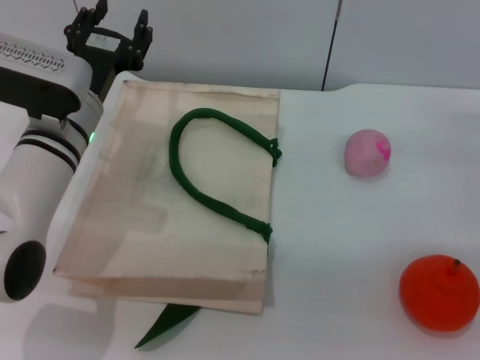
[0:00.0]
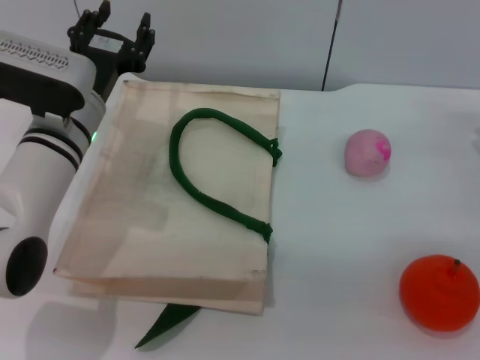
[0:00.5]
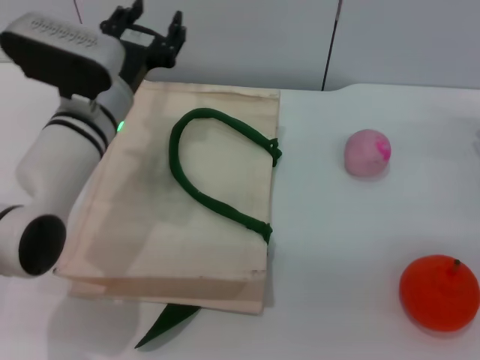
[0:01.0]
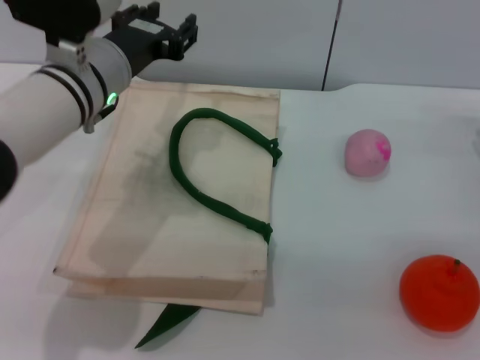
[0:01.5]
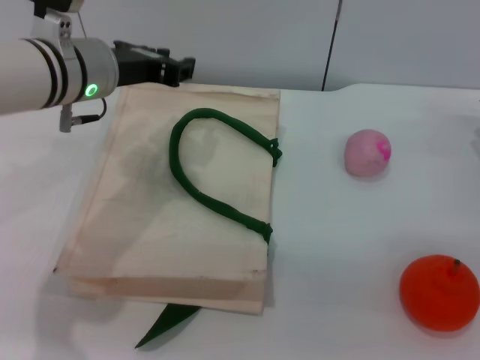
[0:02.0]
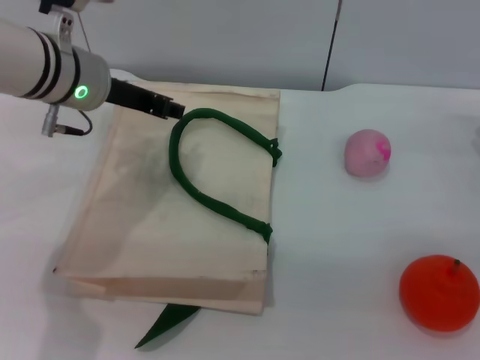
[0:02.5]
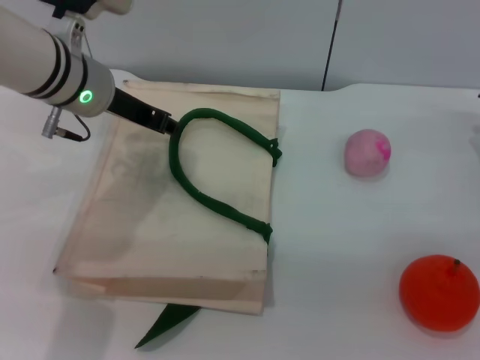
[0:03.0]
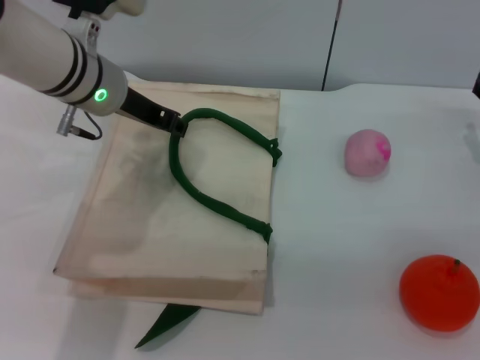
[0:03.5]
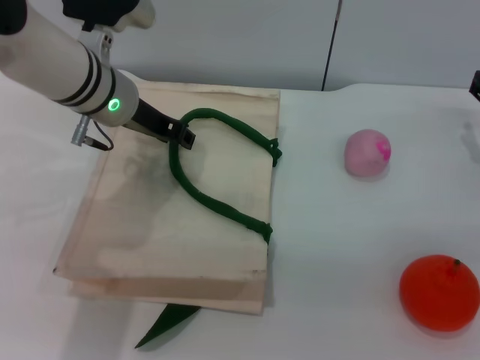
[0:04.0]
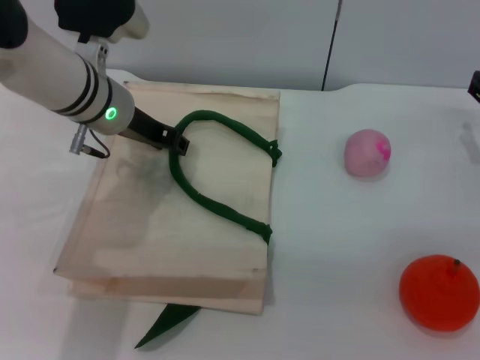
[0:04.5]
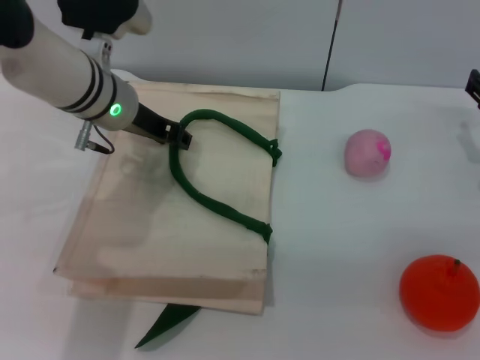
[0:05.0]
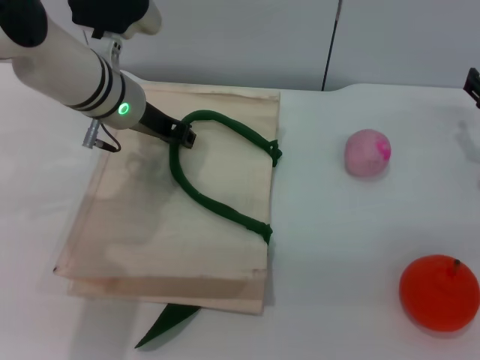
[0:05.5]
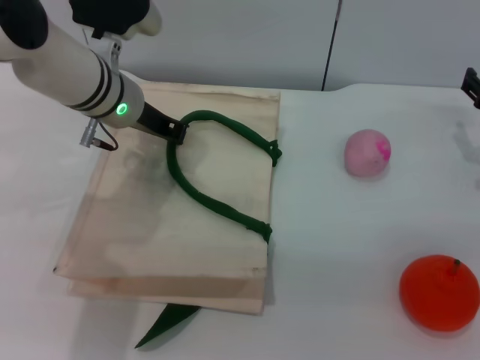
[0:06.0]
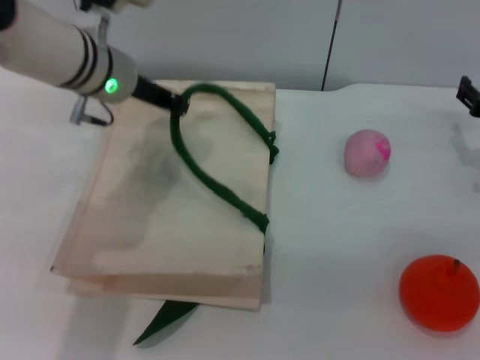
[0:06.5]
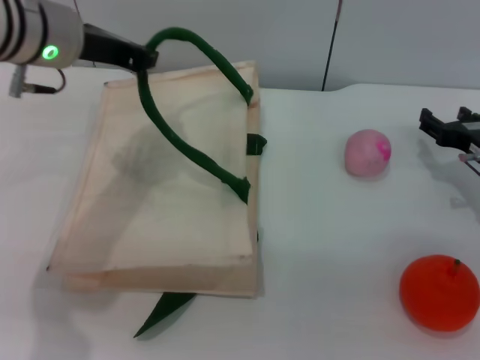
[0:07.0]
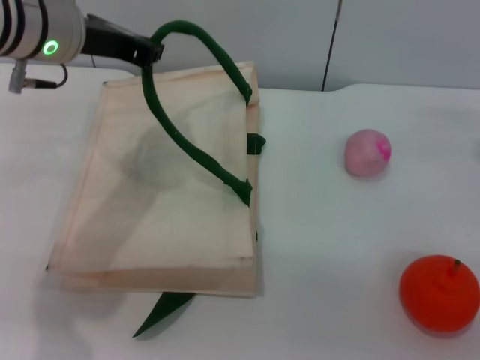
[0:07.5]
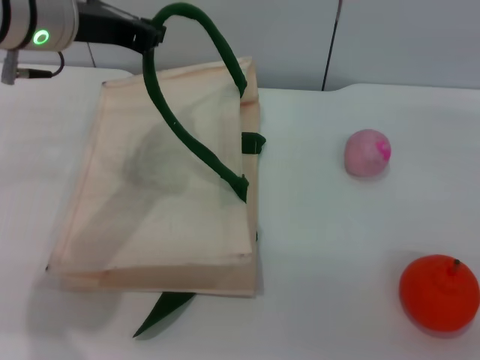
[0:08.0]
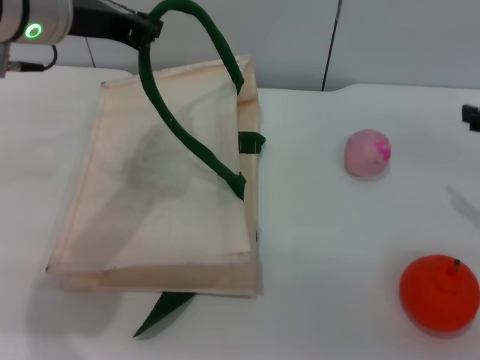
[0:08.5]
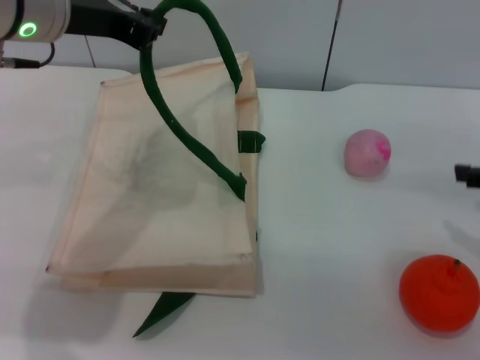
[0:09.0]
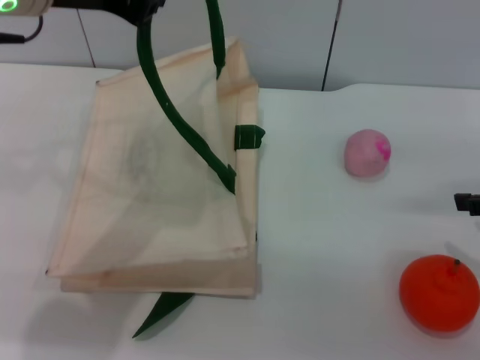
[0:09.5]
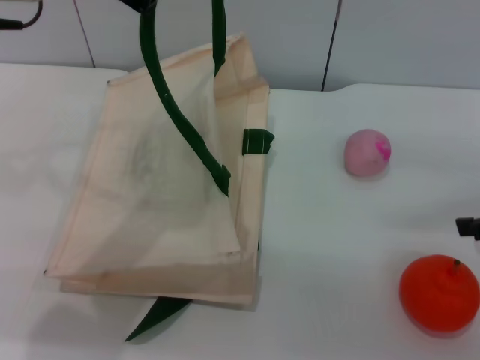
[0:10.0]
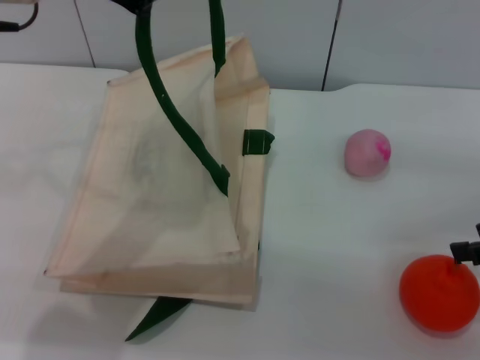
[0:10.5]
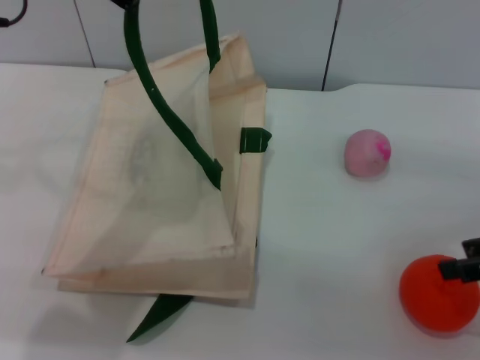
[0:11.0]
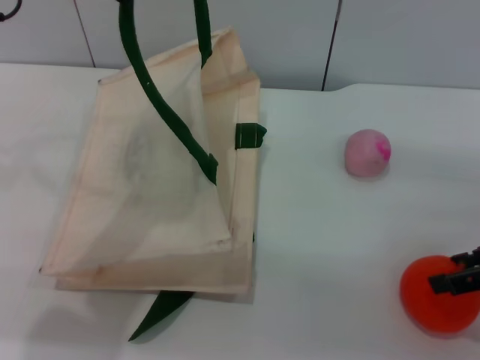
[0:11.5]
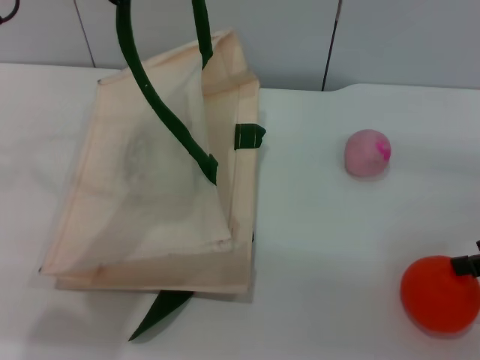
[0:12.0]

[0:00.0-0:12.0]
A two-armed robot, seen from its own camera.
Task of the whole recording: pick up the orange and peach from the table and place it in the white handbag.
Step, 0:00.0 to 0:07.0: Lift the woven bag with the left gripper to open it.
0:00.0 to 0:02.0: The left gripper moves upward, approximately 10 cm, and closes up.
0:04.0 to 0:06.0: The left gripper closes up.
0:06.0 to 0:08.0: The grippers both shift upward and backward by about 10 cm.
0:08.0 to 0:10.0: The right gripper ends up some 5 cm from where it was. Meanwhile the left gripper is displaced upward by roughly 5 cm.
0:10.0 to 0:12.0: The grippers move only a little.

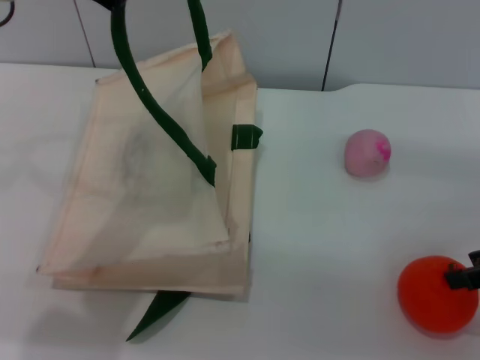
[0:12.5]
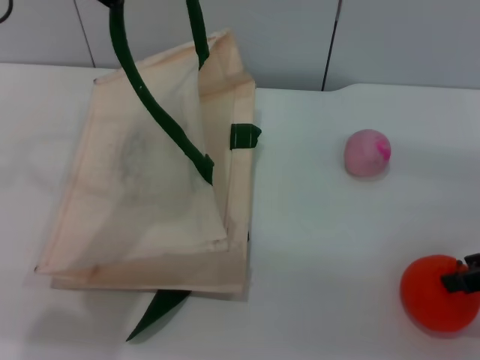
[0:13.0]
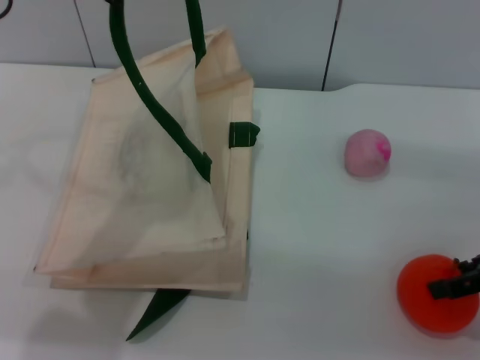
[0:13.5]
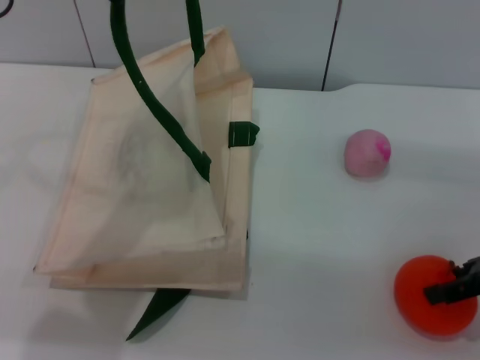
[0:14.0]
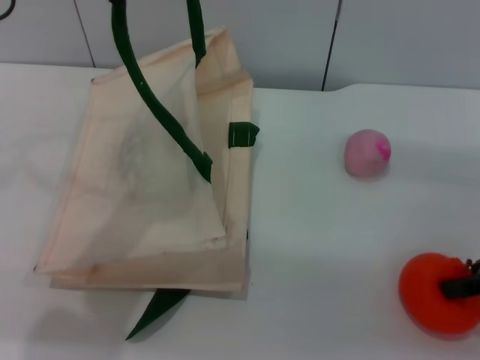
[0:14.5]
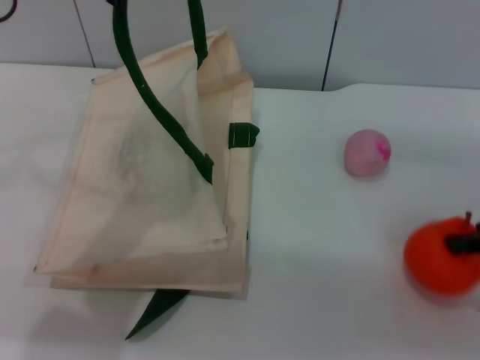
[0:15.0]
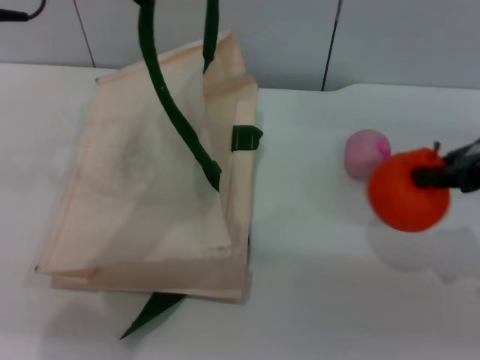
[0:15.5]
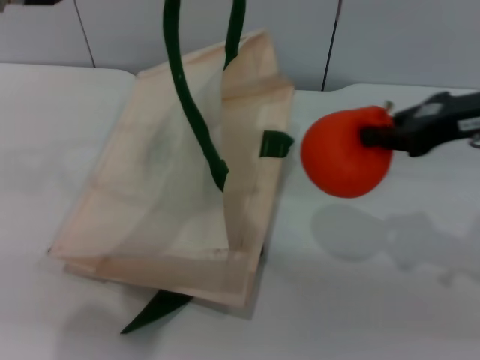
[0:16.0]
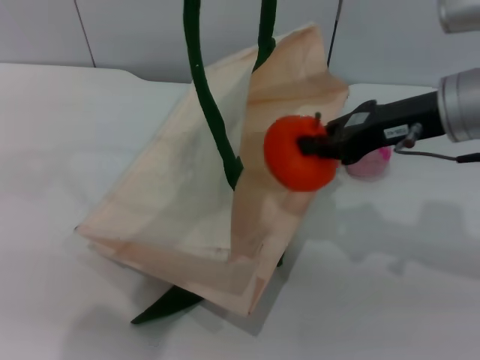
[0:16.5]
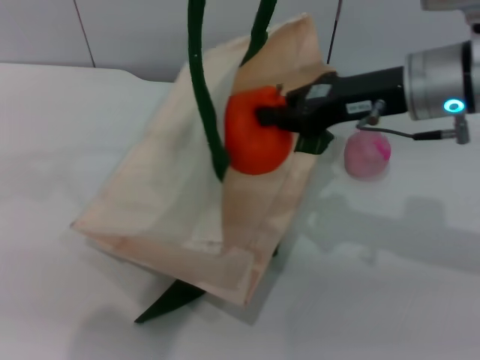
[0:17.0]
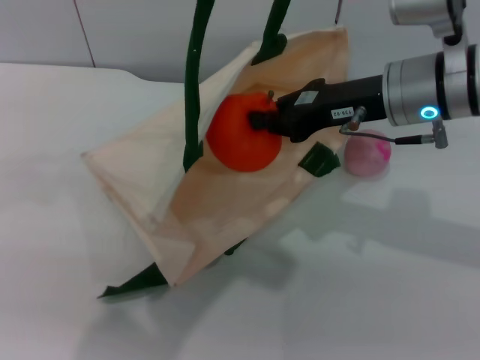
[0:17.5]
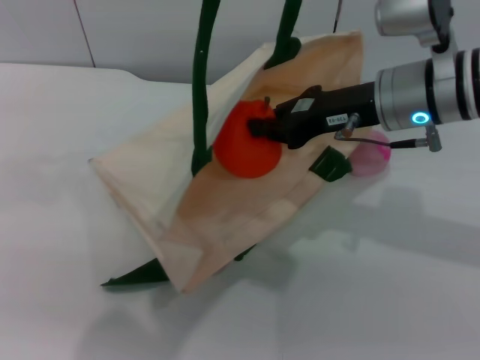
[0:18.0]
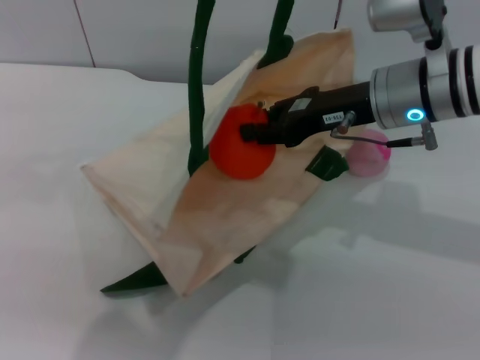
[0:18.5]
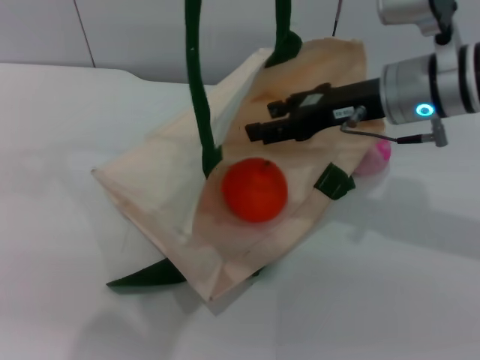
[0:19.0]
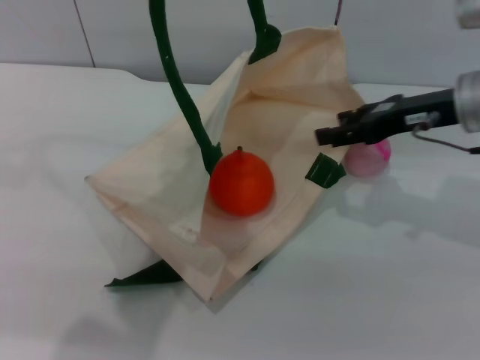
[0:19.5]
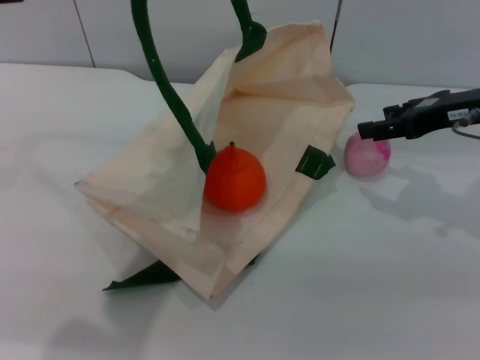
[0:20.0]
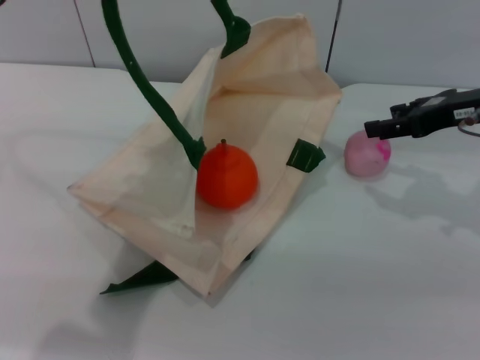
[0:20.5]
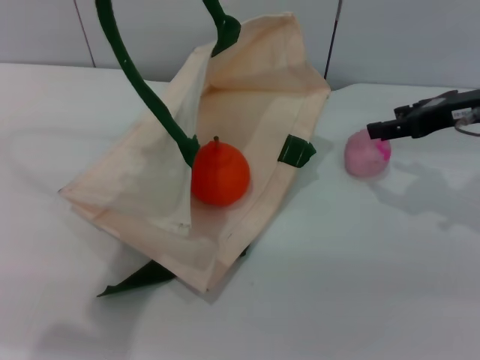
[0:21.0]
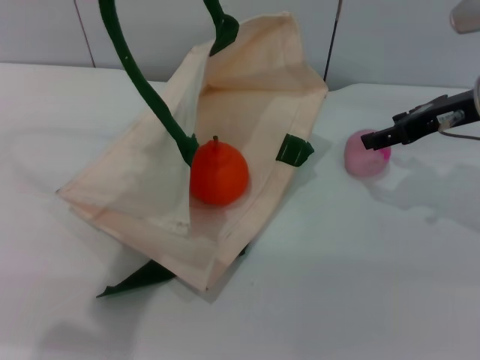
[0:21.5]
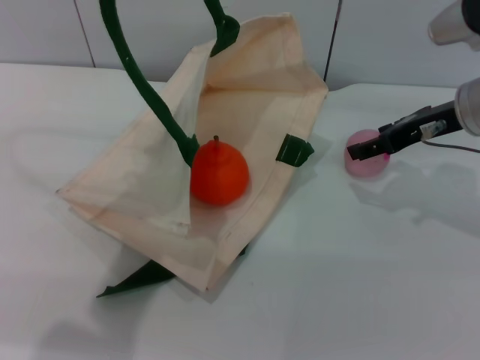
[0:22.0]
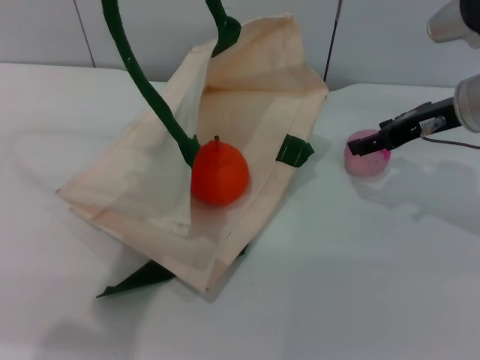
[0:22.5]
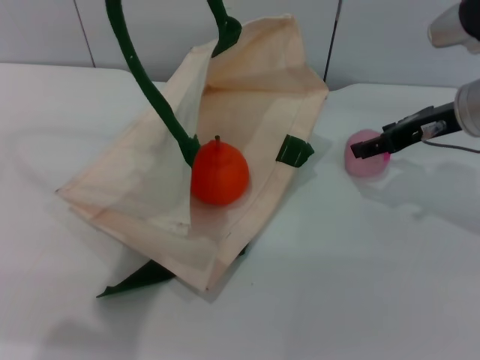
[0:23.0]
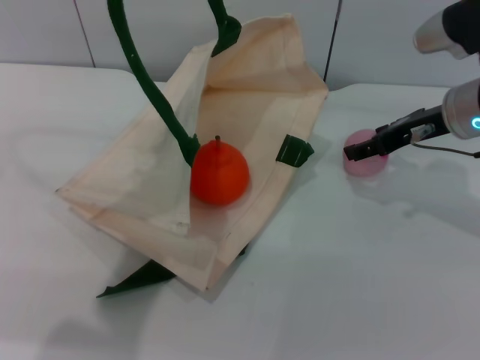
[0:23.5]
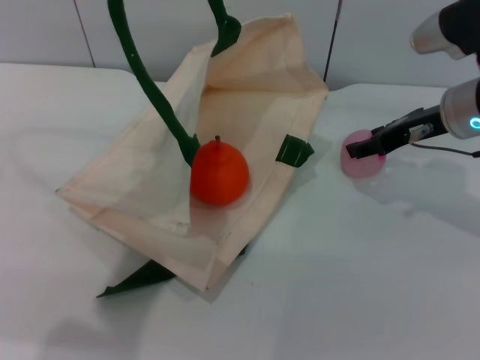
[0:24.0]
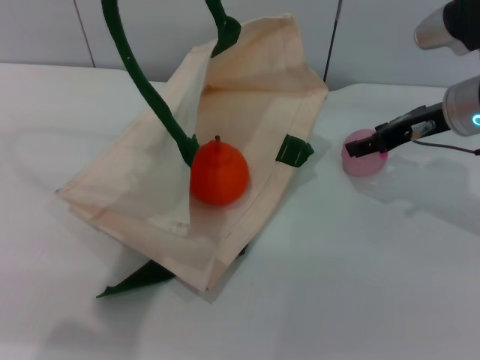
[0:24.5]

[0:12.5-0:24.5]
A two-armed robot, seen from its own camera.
Task of the whole recording: pick up the orange and peach from the table and place it in the white handbag.
Step, 0:12.5 to 0:15.0: Pick up the orange with the right gripper.
Step, 0:15.5 to 0:19.0: Place the orange into the woven bag with the right gripper.
0:12.5 to 0:14.5: The right gripper closes.
0:14.5 to 0:16.5: The left gripper moves to the right, roughly 5 cm; the right gripper shifts roughly 15 cm to the left, forward and upward, and closes.
0:16.5 to 0:18.5: The right gripper shifts by some 5 cm.
0:18.5 to 0:20.5: The left gripper is displaced to the left by roughly 5 cm. Meanwhile the right gripper is displaced to the right by about 10 cm, and opens its fingers.
0:20.5 to 0:22.5: The grippers make only small movements.
0:22.5 to 0:24.5: The grippers make only small movements.

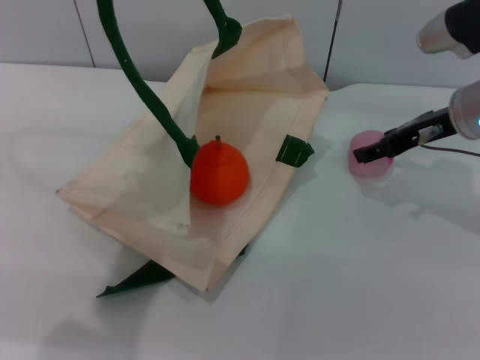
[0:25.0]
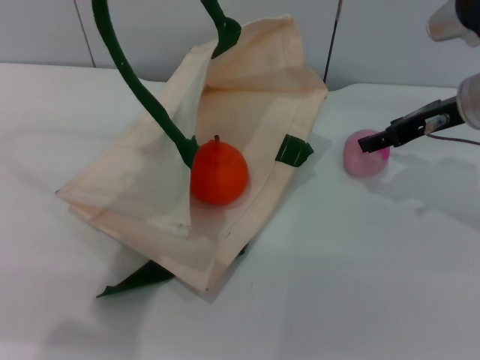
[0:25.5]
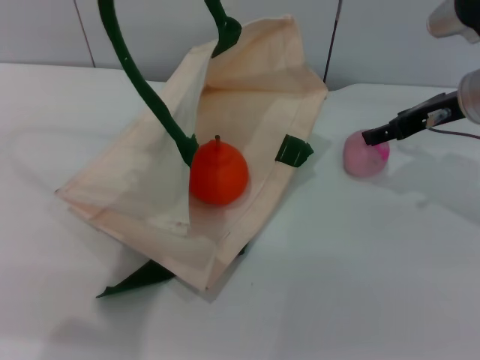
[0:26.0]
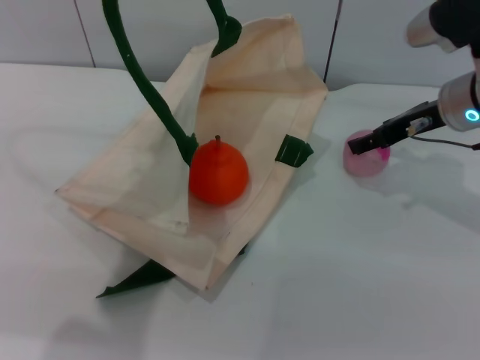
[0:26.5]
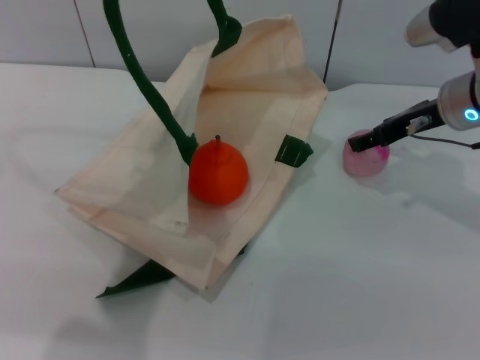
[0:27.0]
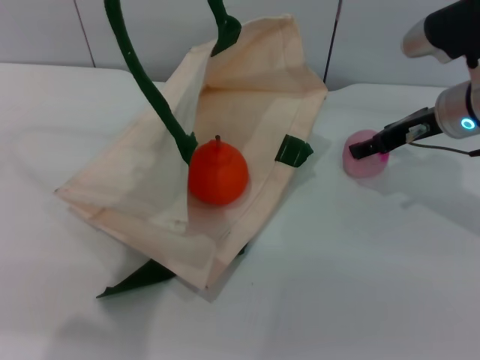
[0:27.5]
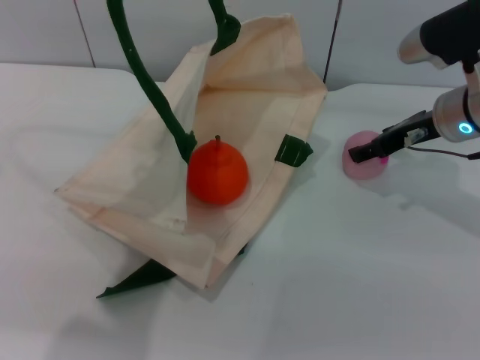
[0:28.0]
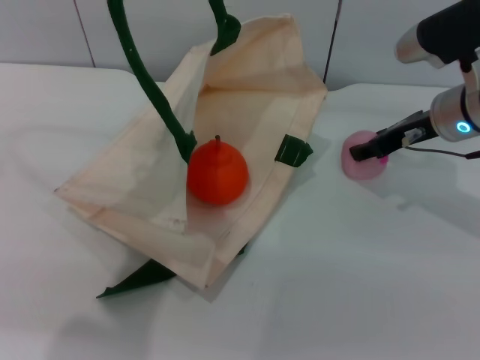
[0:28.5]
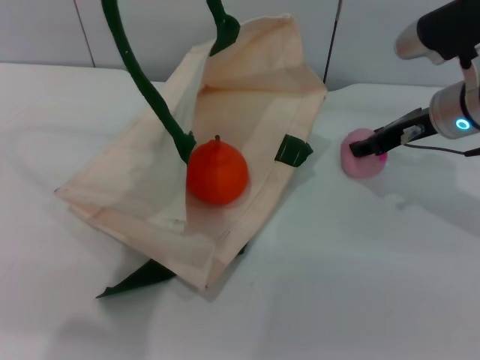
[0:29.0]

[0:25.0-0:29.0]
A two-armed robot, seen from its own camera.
Task of the whole recording: pick up the orange and peach from the table and place it in the white handbag.
0:25.0 to 0:27.0: The grippers make only small movements.
0:27.0 to 0:29.0: The right gripper closes up.
